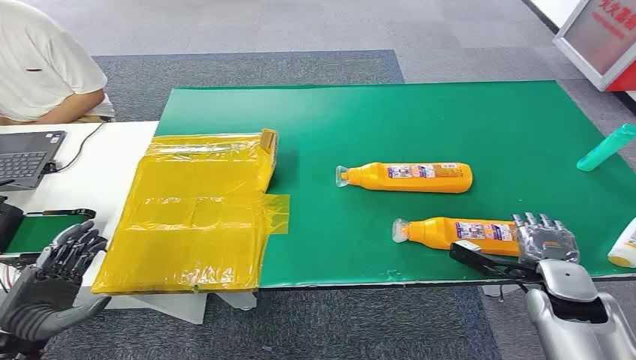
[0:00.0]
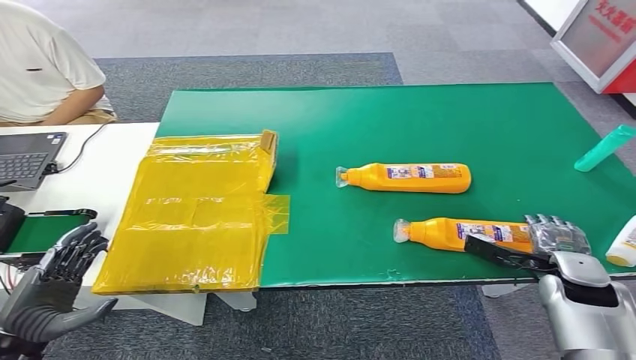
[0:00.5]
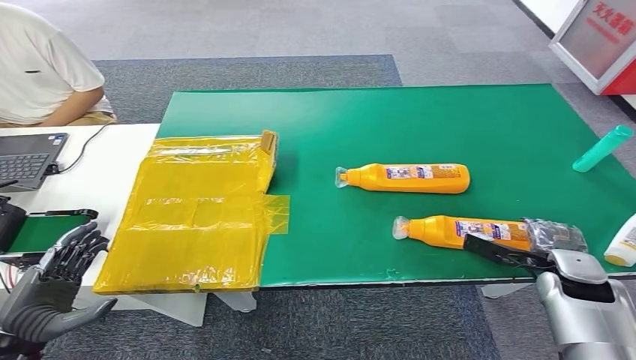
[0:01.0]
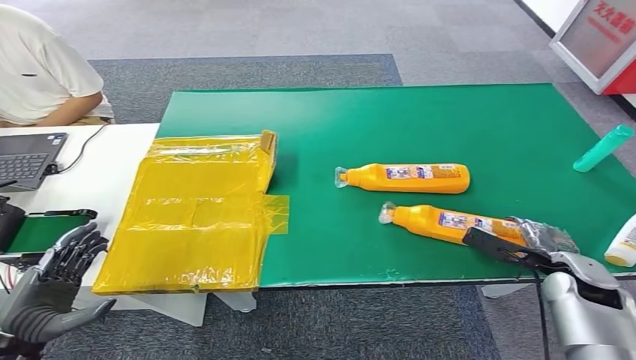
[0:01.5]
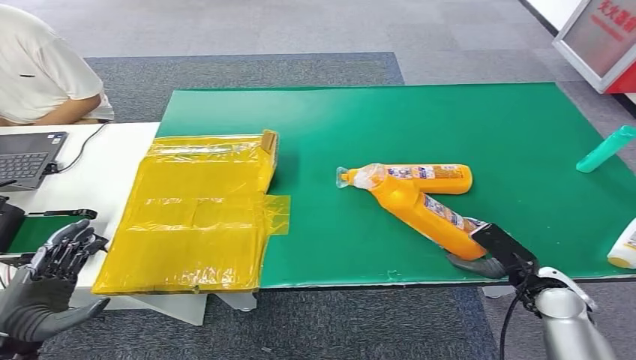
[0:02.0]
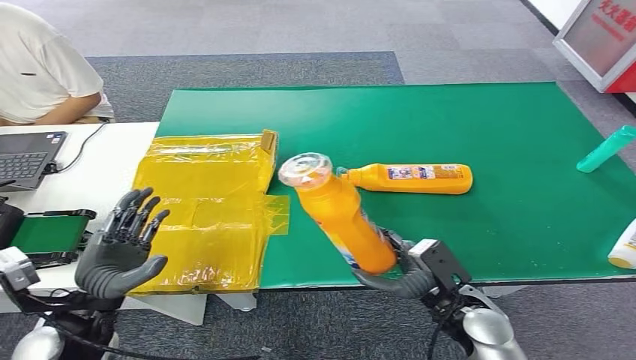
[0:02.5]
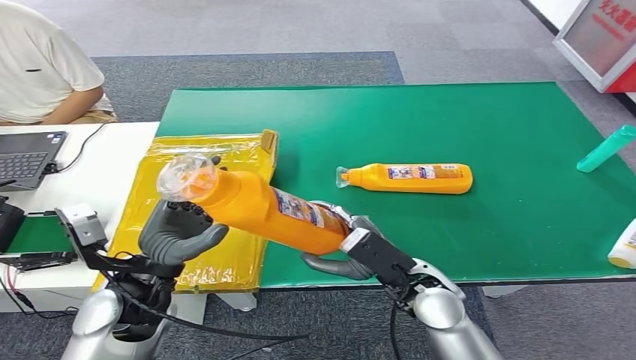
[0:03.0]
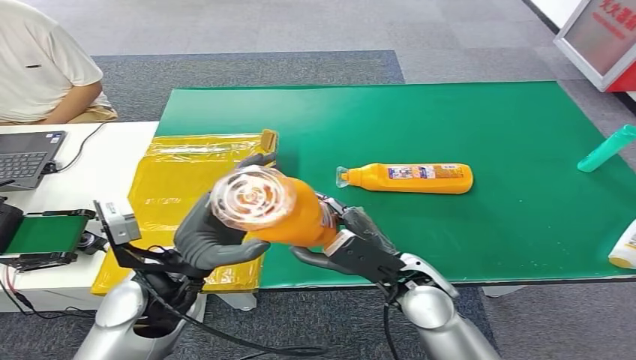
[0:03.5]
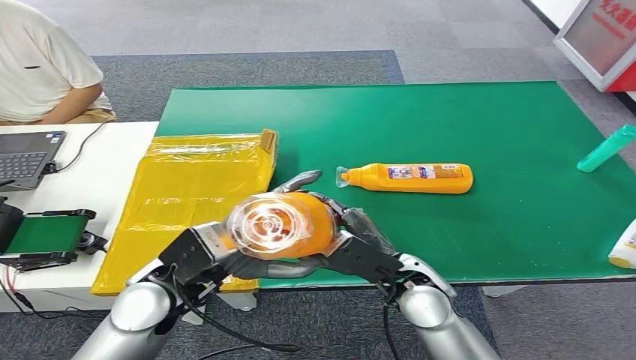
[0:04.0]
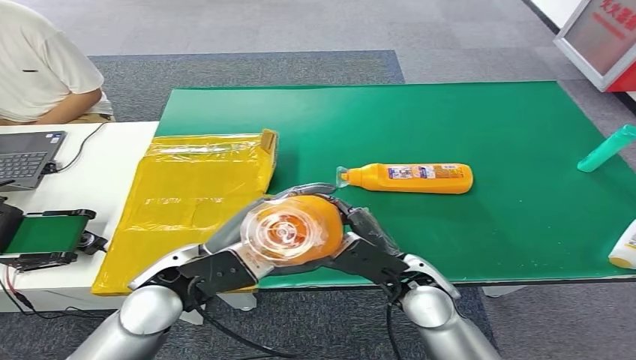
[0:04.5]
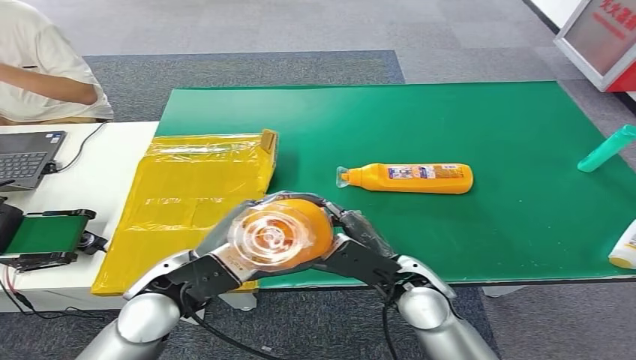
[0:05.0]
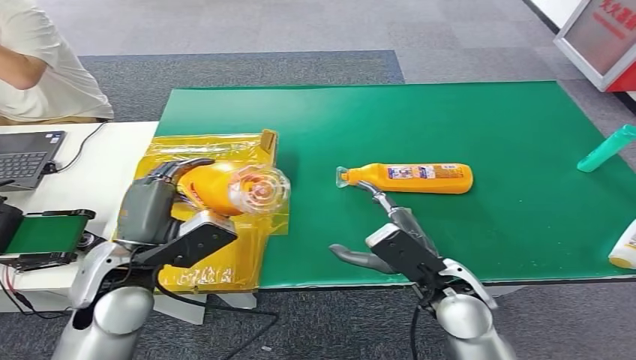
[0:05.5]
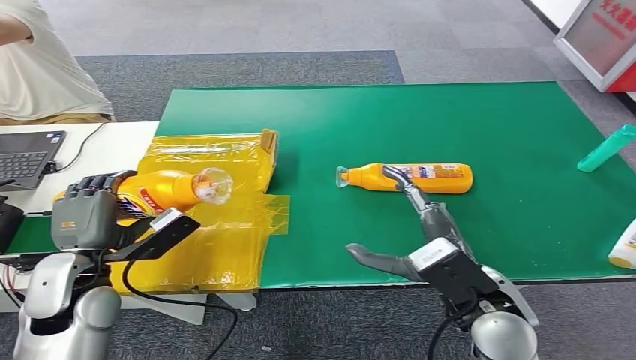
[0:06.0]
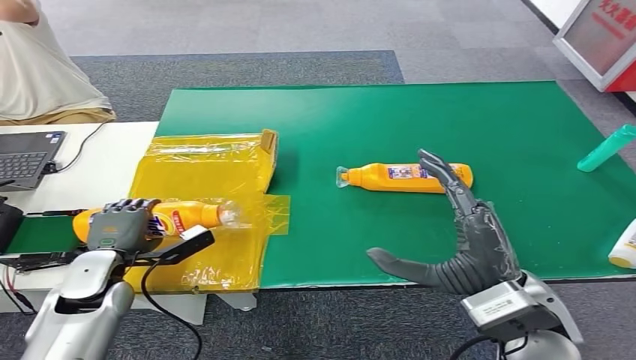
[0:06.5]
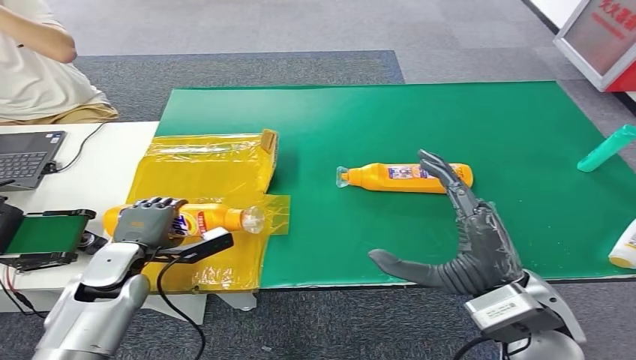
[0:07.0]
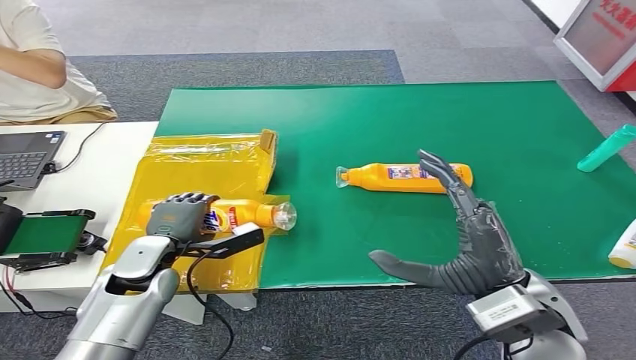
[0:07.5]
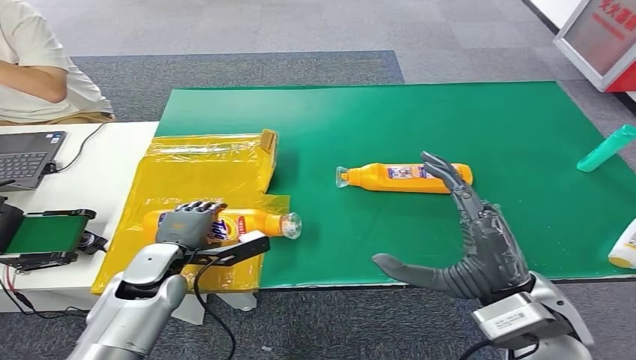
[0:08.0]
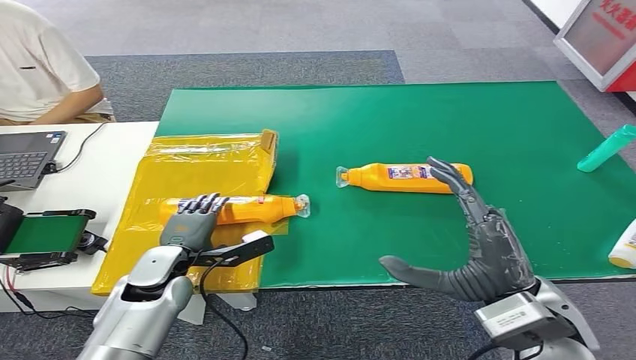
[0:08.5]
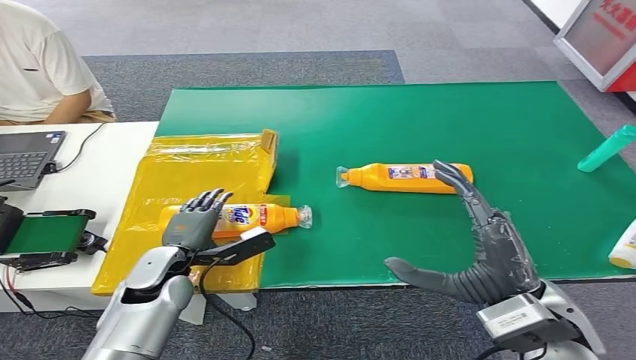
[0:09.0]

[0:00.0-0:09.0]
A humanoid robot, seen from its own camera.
Step, 0:00.0 to 0:02.0: Pick up the bottle from the table.
Step, 0:04.0 to 0:09.0: Turn the bottle to the front side.
0:07.0 to 0:09.0: The left hand heads to the right, covering approximately 5 cm.
